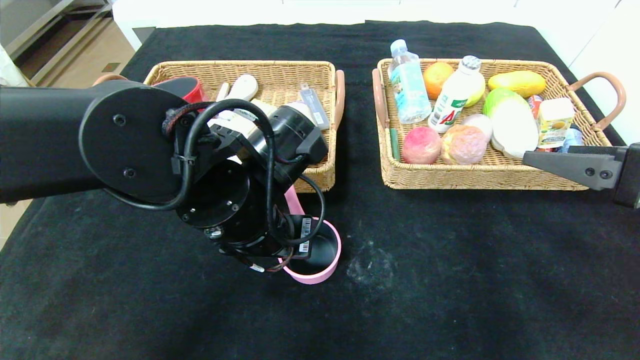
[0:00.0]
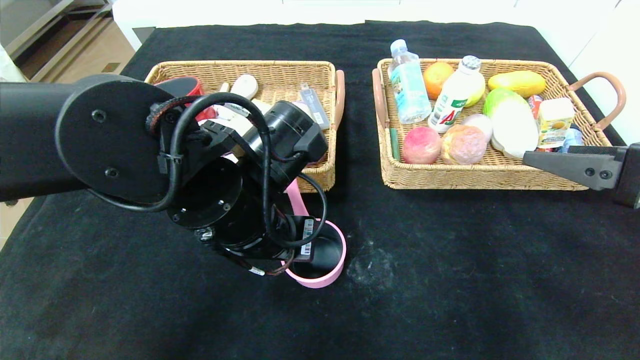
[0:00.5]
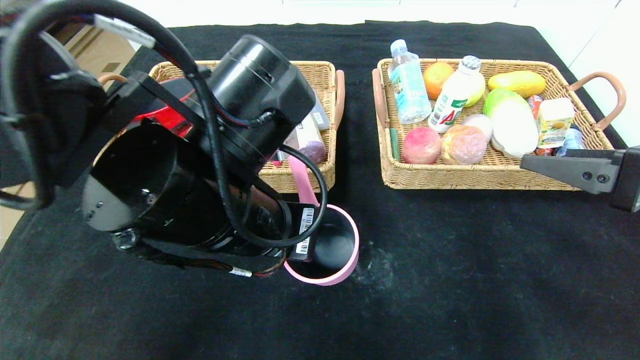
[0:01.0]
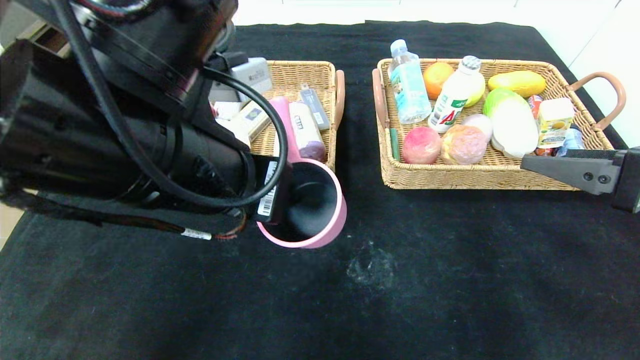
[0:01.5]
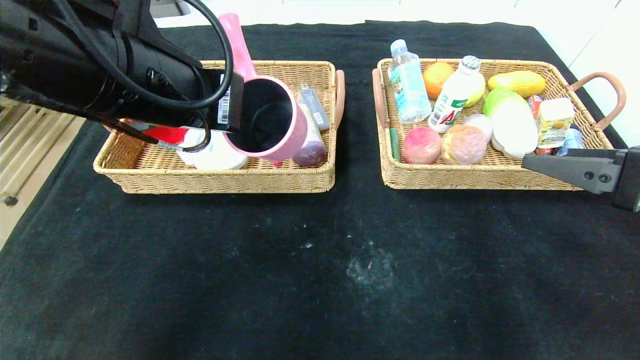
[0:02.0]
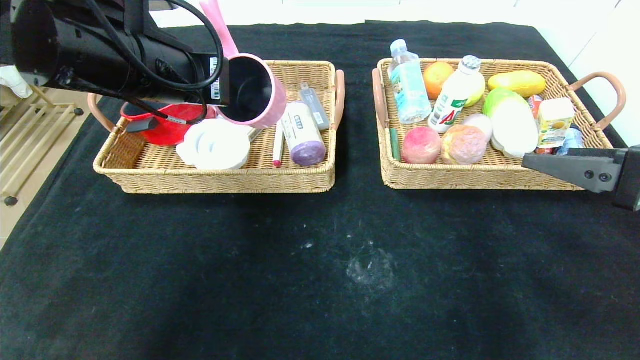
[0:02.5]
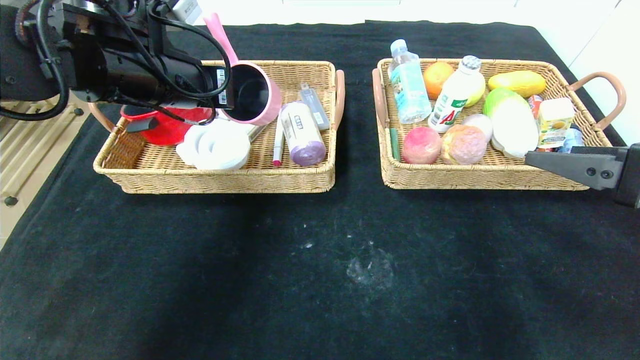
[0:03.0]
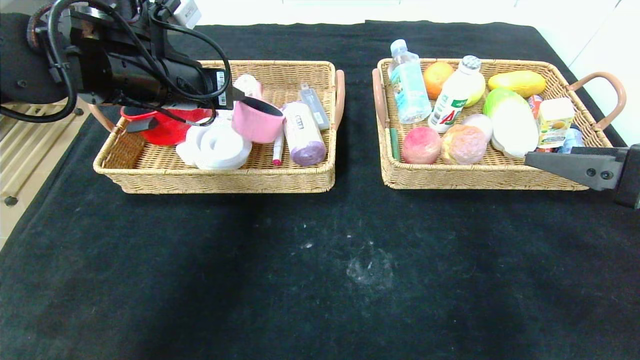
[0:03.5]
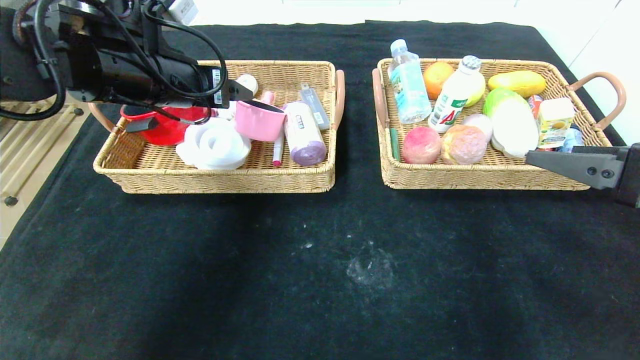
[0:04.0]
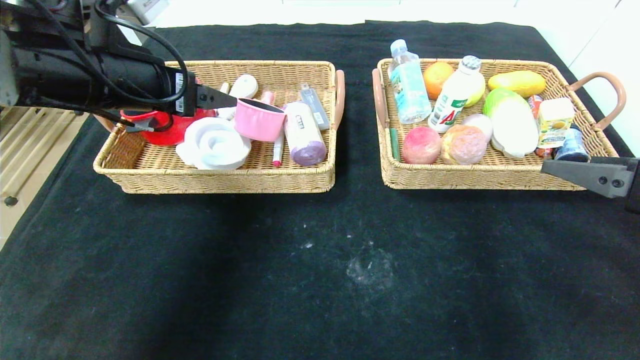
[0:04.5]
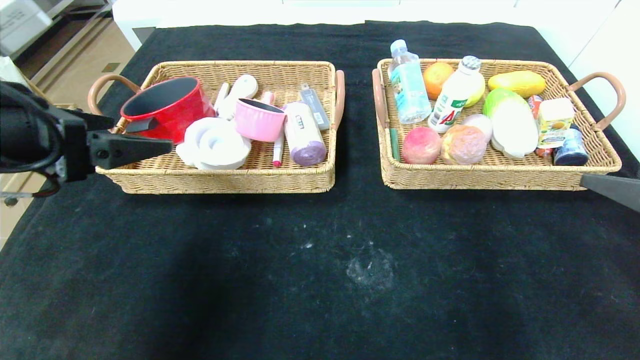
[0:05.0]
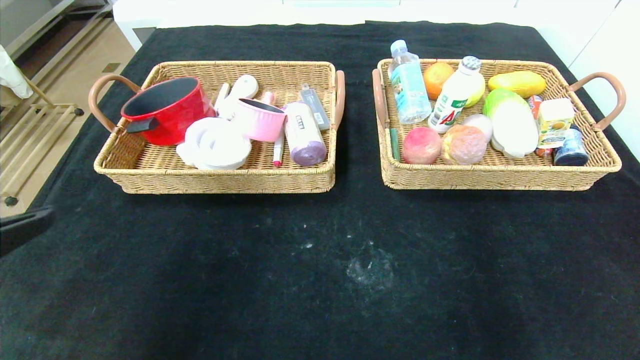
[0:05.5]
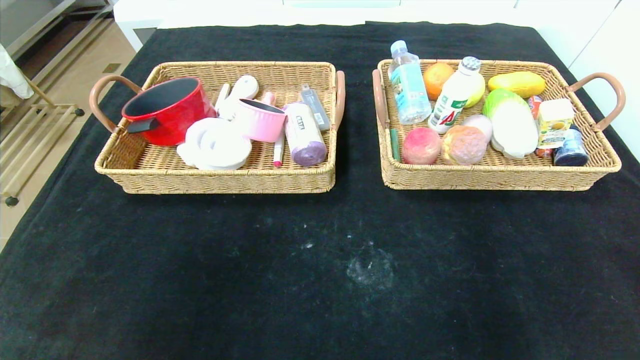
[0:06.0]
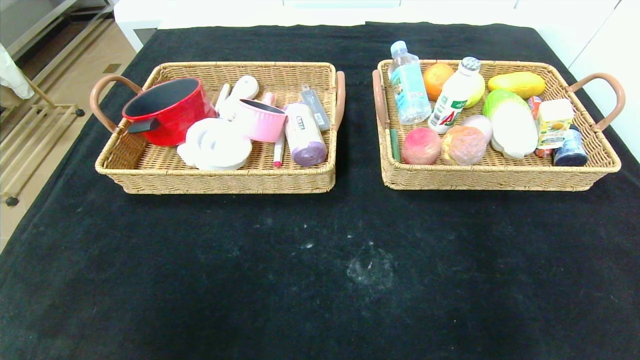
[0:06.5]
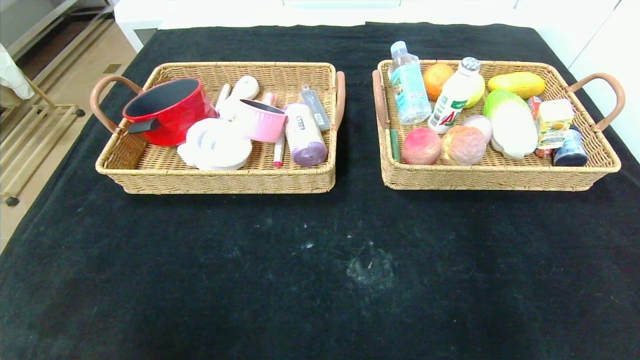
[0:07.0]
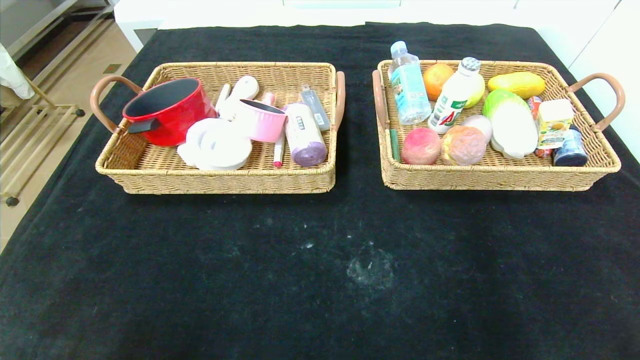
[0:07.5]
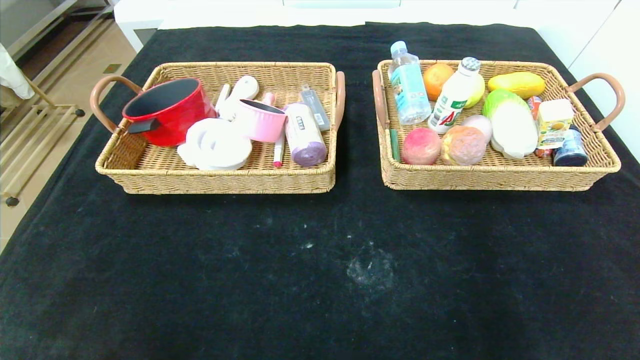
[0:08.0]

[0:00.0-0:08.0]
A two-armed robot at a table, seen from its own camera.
Step, 0:00.0 to 0:05.0: Pick up the pink pot and put it in the left basket.
0:00.0 to 0:02.0: The left gripper heads upward and to the left, covering roughly 15 cm.
0:02.0 to 0:04.0: The left gripper heads forward and to the left, covering some 10 cm, and opens its fingers.
0:04.0 to 0:06.0: The right gripper shifts some 20 cm backward, while the left gripper travels backward by some 35 cm.
0:06.0 to 0:08.0: The left gripper travels downward by some 20 cm.
